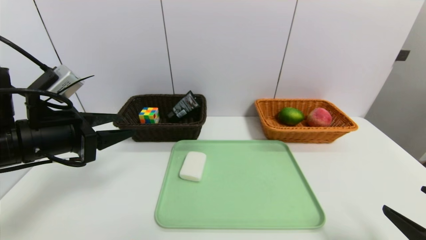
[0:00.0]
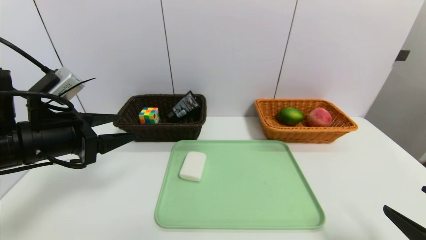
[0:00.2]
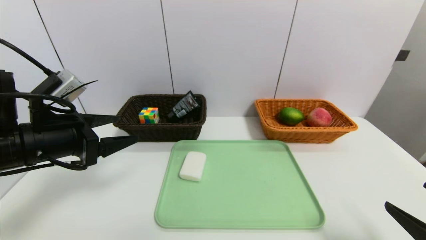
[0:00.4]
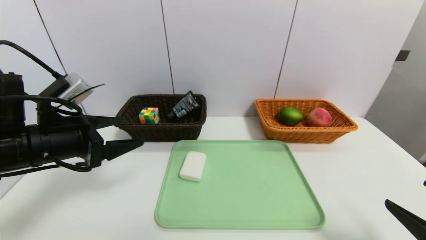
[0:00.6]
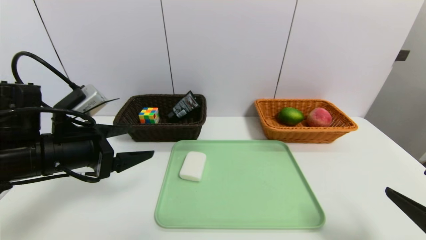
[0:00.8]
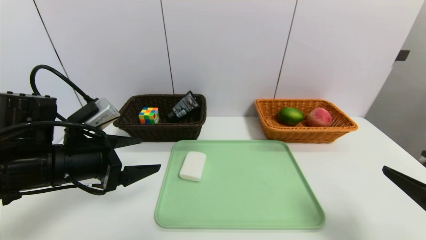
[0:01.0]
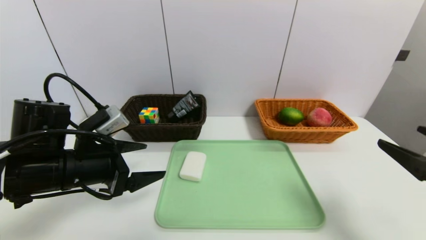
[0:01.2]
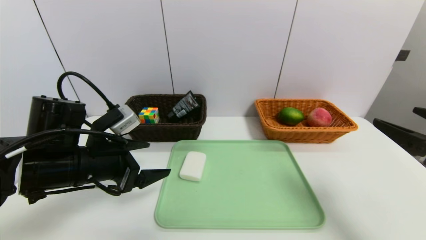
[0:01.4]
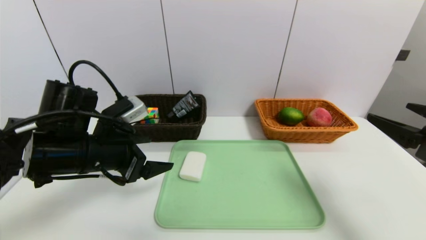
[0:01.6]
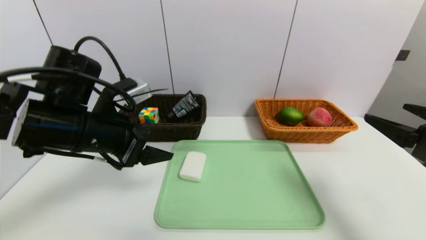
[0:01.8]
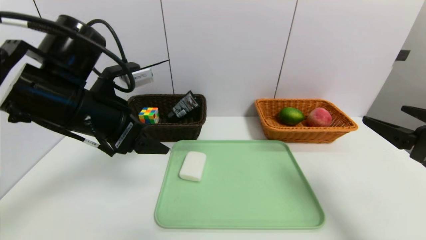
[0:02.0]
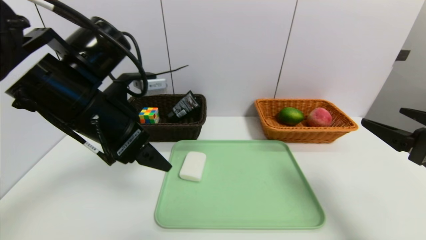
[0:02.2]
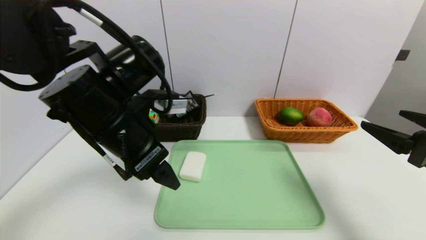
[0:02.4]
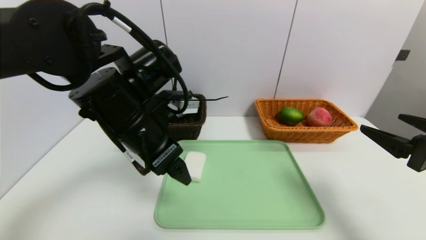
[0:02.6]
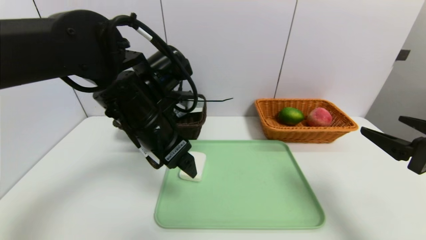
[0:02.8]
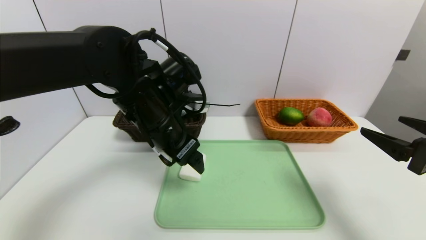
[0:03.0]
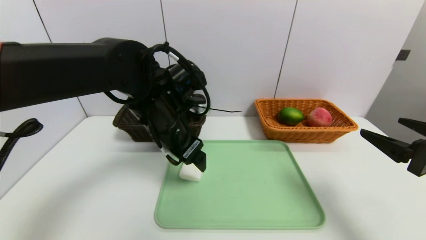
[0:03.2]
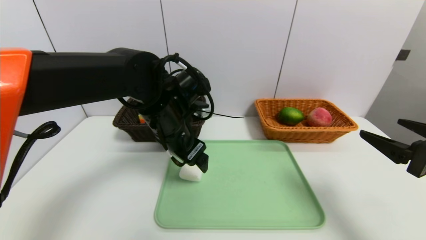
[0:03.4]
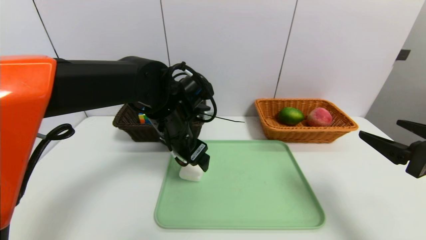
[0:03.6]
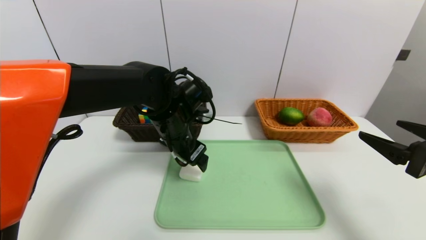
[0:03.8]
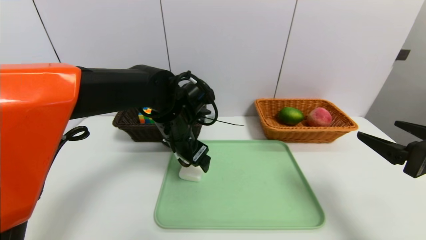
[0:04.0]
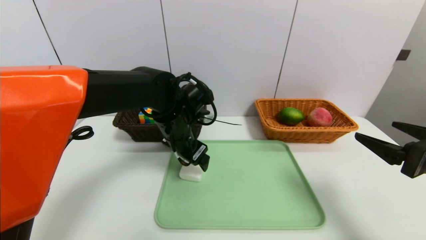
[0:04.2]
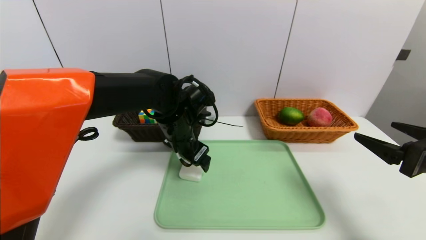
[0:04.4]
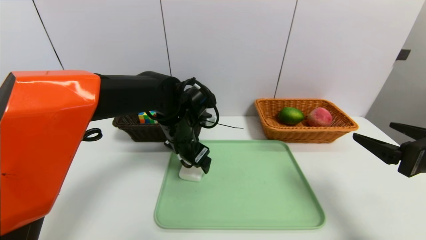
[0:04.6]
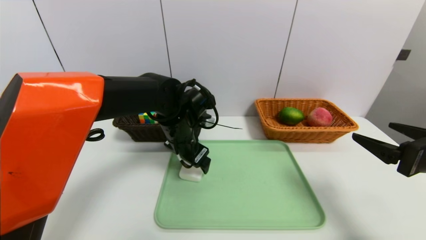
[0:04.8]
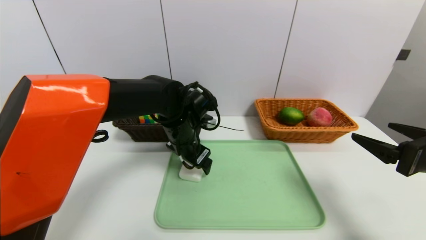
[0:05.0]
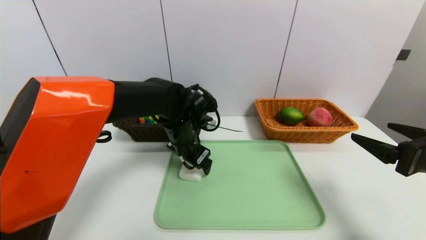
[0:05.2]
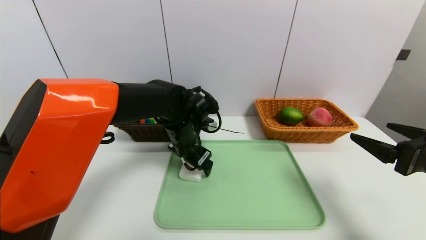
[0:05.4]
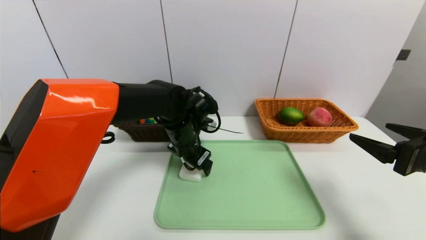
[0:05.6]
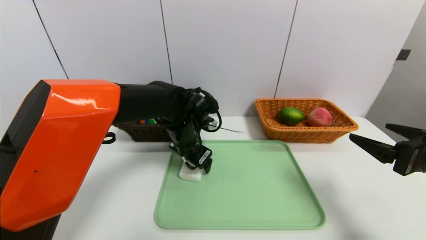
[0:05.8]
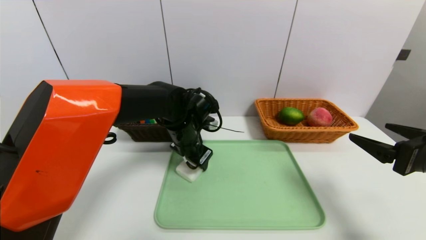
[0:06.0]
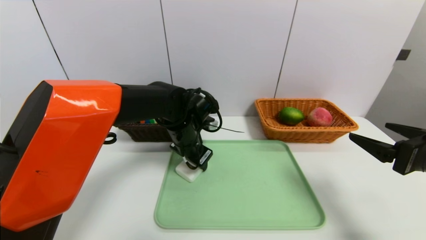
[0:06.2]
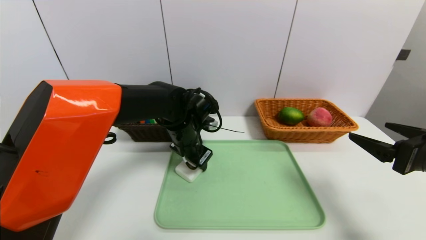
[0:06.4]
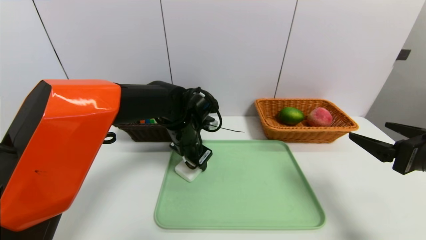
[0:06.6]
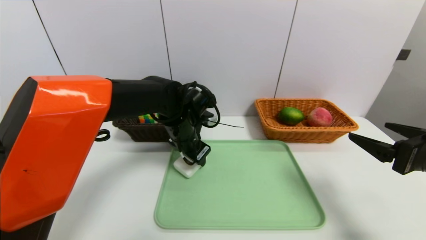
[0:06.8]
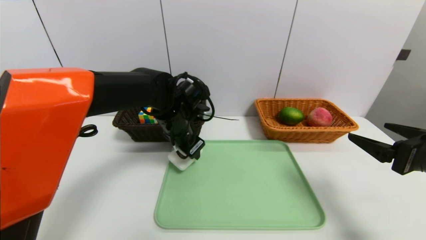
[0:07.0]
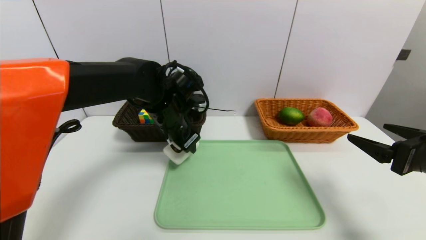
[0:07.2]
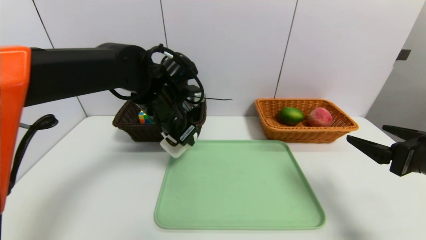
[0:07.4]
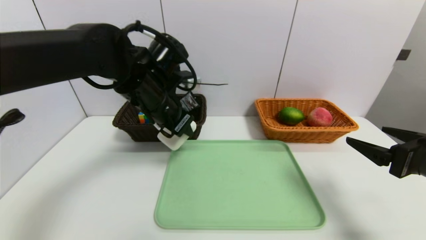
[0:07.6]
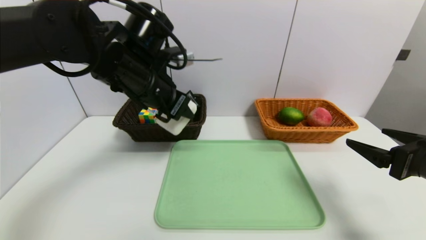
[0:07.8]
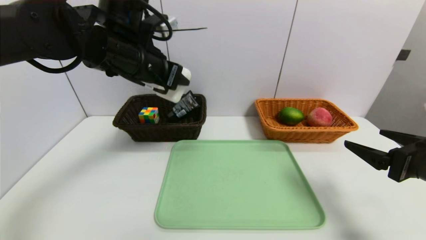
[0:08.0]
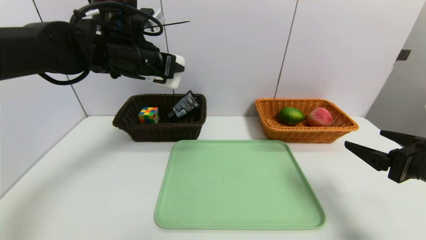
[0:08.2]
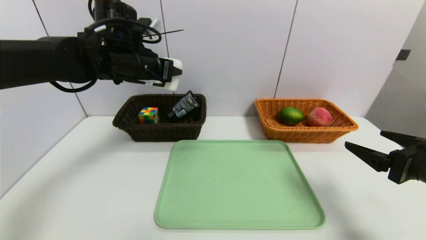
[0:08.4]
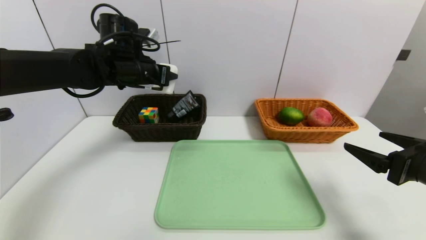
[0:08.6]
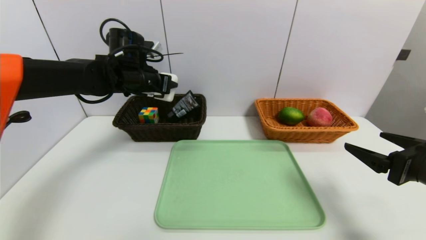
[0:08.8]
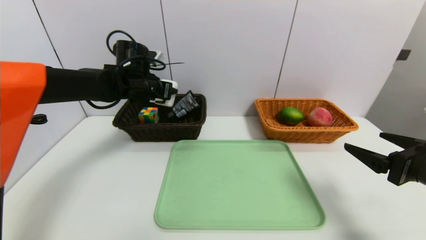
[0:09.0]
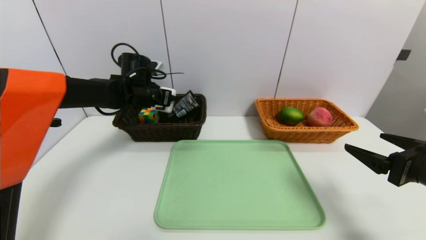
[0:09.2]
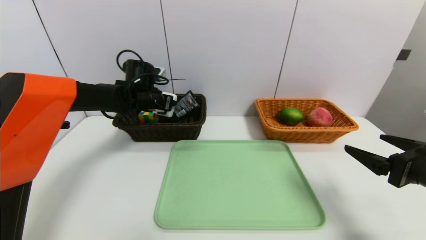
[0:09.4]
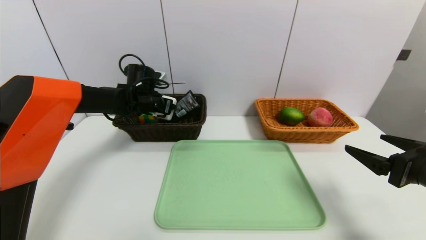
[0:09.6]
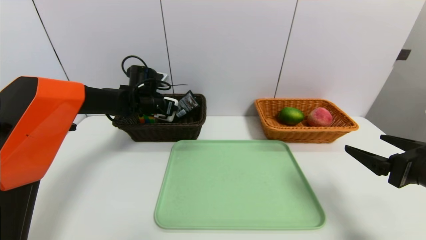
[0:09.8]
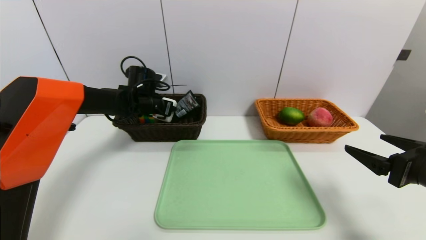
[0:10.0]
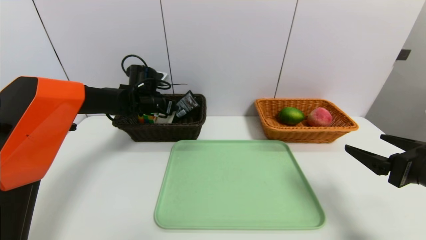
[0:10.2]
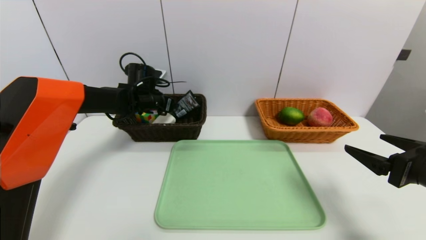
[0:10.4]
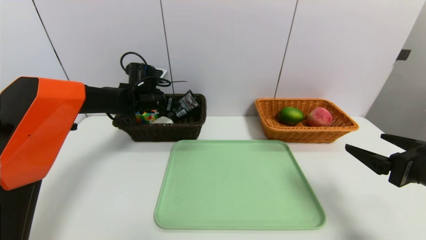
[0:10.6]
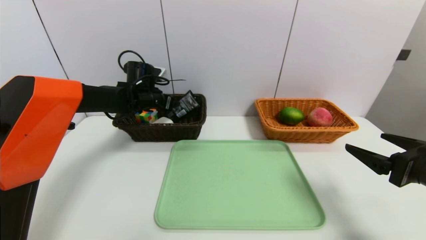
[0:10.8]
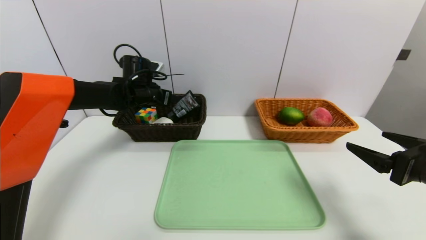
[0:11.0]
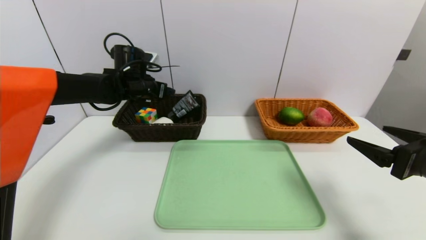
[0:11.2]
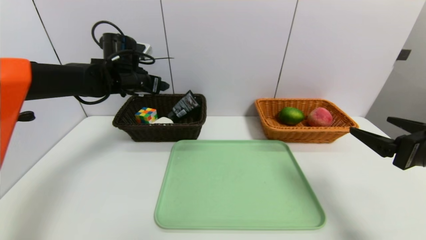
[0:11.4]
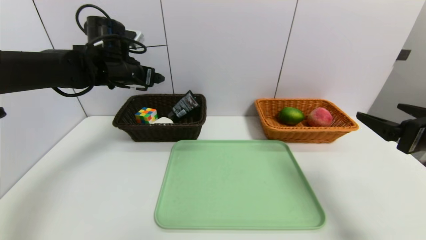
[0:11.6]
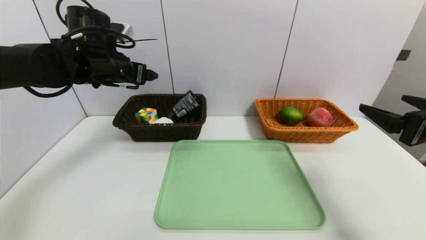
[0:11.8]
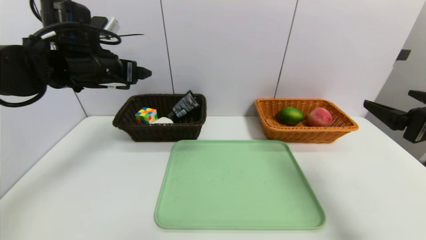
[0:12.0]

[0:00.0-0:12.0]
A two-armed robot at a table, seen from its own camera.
Task of the whole recording: place the food in the right basket with the right gripper, and place the non food items in the left basket with the left gripper.
Step, 0:00.0 to 0:10.8: Grasp the soap and put it in the right basket.
0:00.0 to 0:01.6: The left gripper heads to the right, covering roughly 5 cm, and opens. Meanwhile the right gripper moves forward and upward, some 15 cm.
0:01.6 to 0:03.0: The left gripper is displaced to the right by roughly 10 cm.
0:03.0 to 0:04.4: The left gripper shifts some 10 cm downward and forward.
0:04.4 to 0:06.0: The left gripper closes its fingers.
0:06.0 to 0:07.6: The left gripper travels upward and to the left by about 10 cm.
0:07.6 to 0:09.0: The left gripper shifts approximately 15 cm forward and to the left.
0:09.0 to 0:10.4: The left gripper moves downward, some 5 cm.
0:10.4 to 0:12.0: The left gripper shifts approximately 20 cm backward and upward. The right gripper moves upward, some 5 cm.

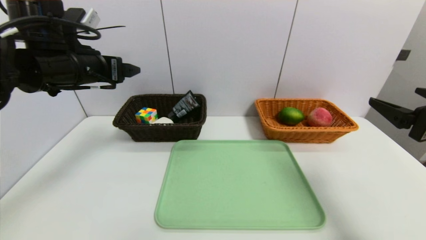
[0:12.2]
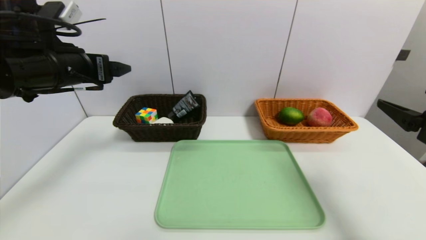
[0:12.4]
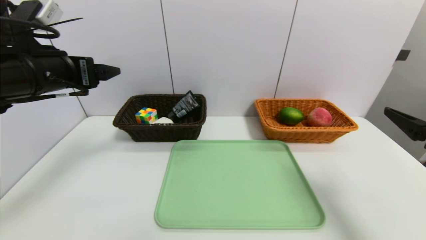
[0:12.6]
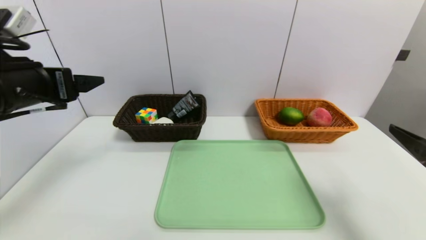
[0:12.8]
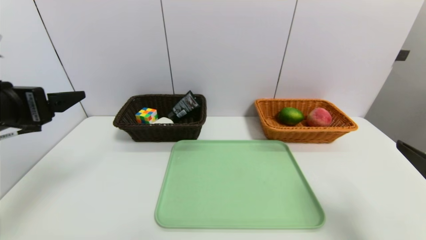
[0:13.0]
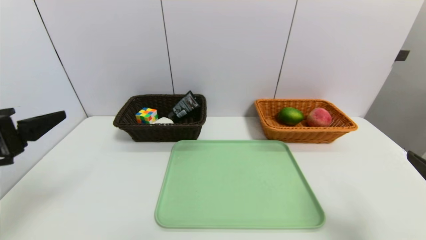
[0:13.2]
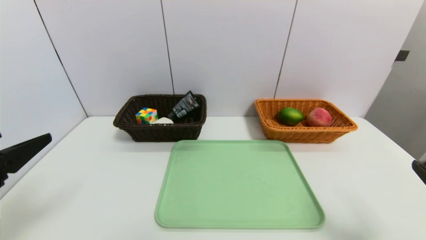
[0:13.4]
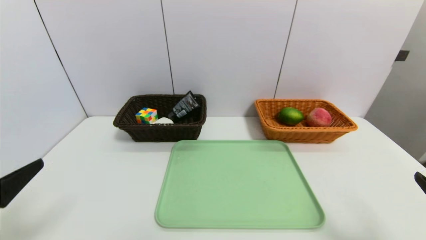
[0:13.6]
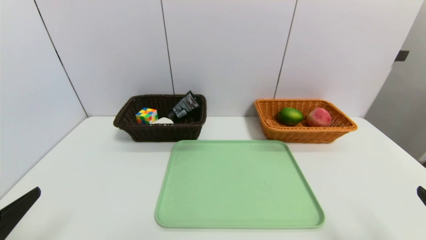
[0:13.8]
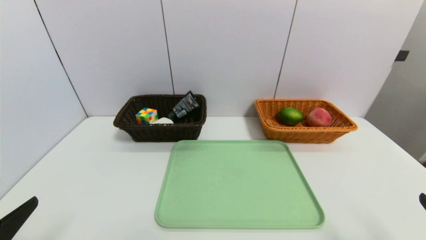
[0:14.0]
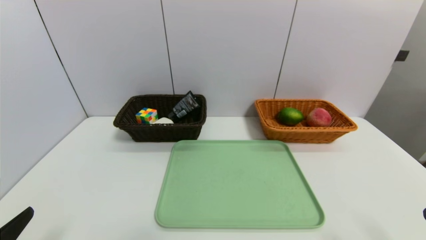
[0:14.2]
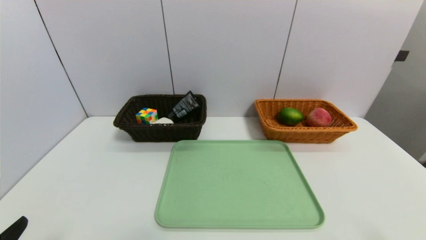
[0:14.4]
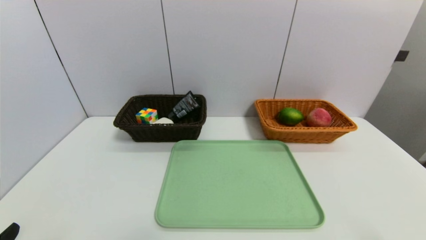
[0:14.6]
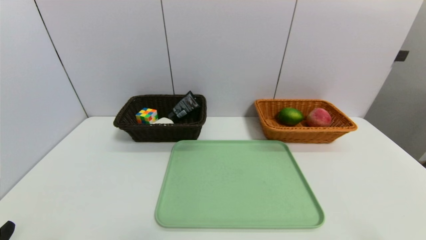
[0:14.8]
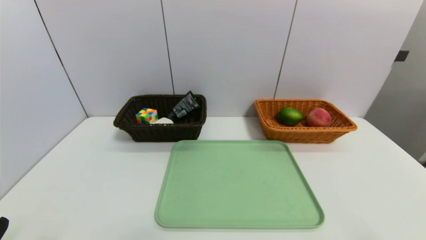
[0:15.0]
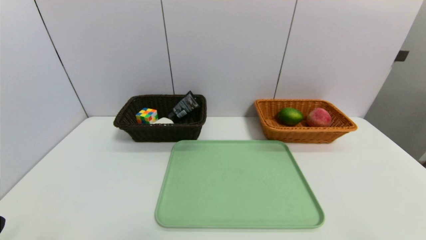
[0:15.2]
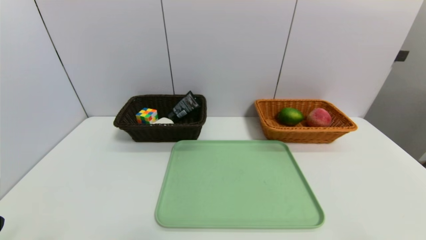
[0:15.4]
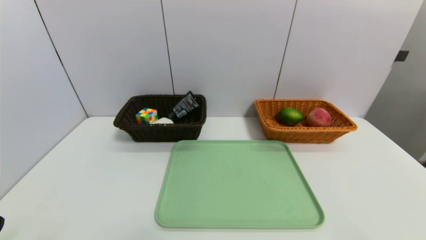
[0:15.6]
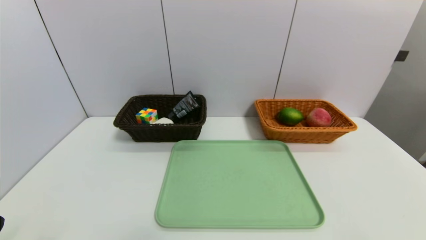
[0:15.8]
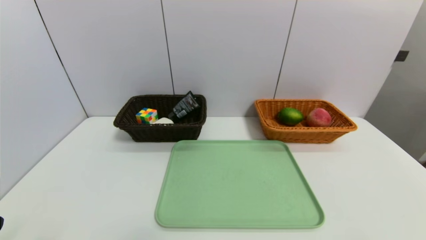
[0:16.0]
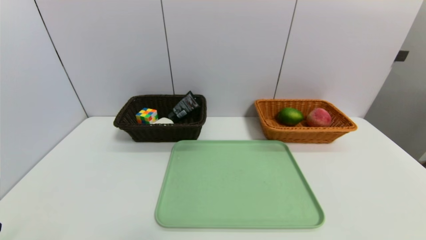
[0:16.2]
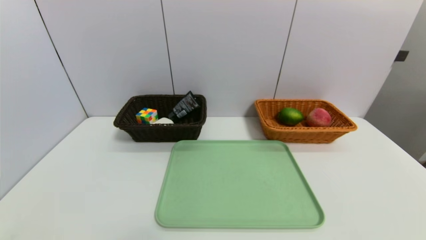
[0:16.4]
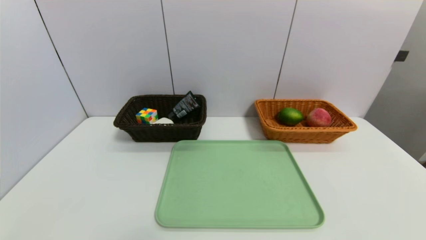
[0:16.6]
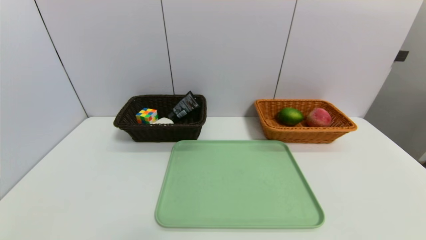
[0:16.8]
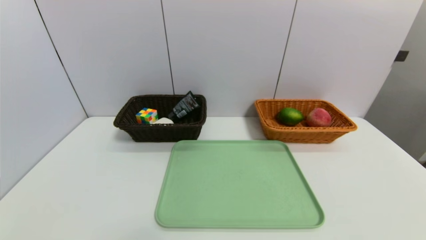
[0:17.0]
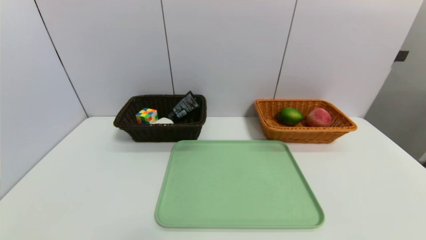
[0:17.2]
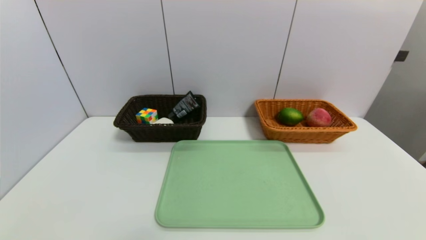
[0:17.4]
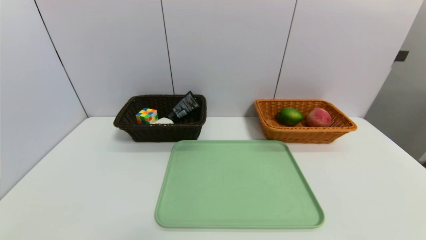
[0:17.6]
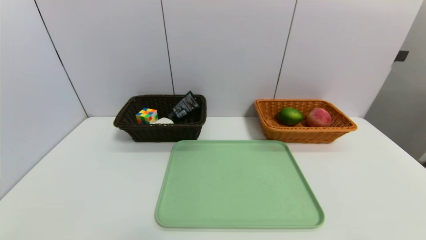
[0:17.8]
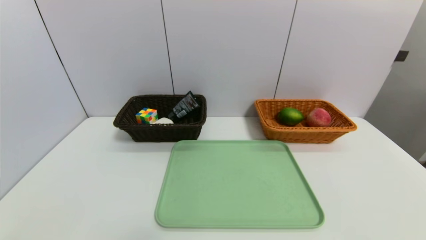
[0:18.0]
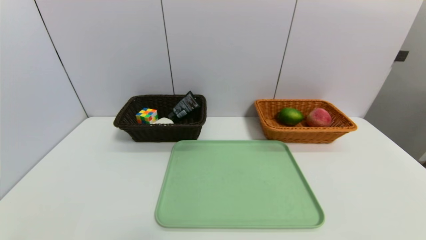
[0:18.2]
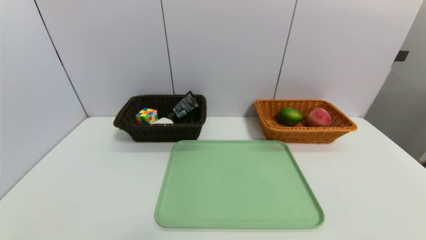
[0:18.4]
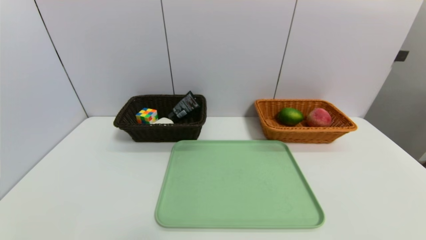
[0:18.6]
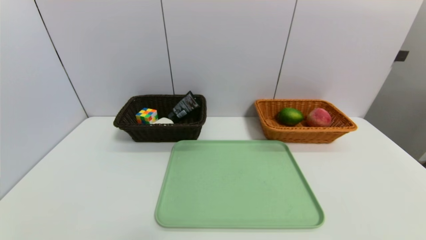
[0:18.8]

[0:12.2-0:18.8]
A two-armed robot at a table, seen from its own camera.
Task of the whole recording: place the food in the right basket with the right gripper, and place the non food items in the left basket with the left gripper.
0:12.2 to 0:13.8: The left gripper heads backward and downward, covering approximately 30 cm. Meanwhile the right gripper shifts roughly 15 cm backward and downward.
0:13.8 to 0:15.4: The left gripper moves about 5 cm.
